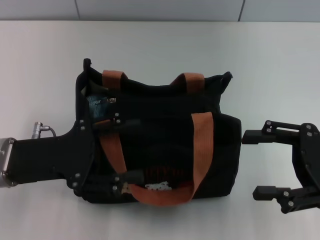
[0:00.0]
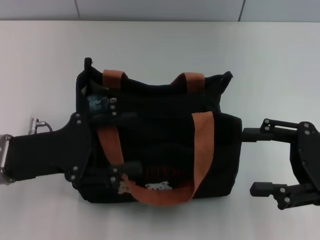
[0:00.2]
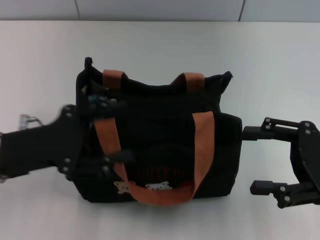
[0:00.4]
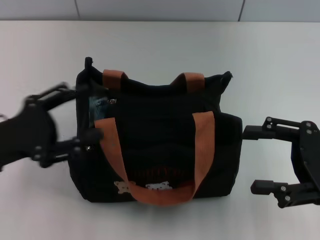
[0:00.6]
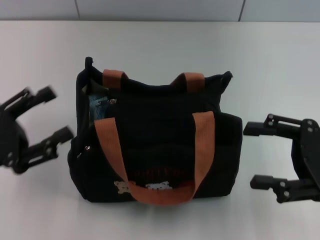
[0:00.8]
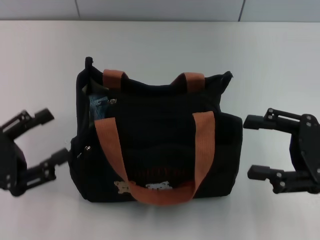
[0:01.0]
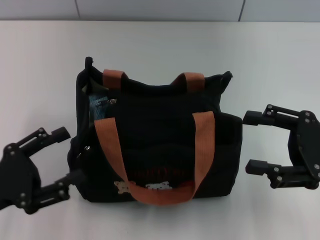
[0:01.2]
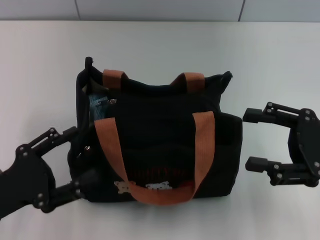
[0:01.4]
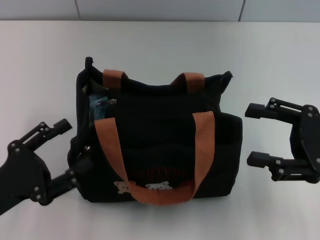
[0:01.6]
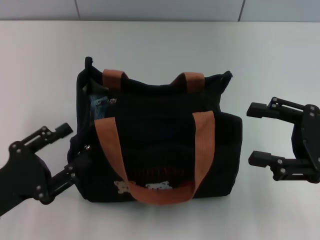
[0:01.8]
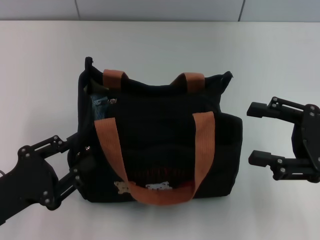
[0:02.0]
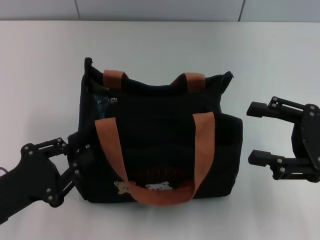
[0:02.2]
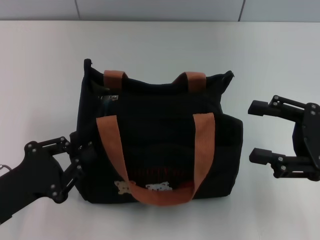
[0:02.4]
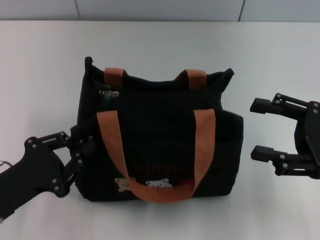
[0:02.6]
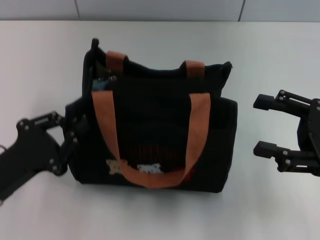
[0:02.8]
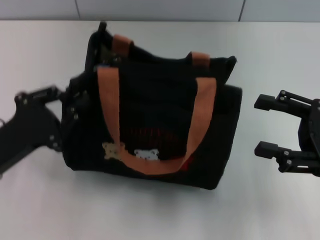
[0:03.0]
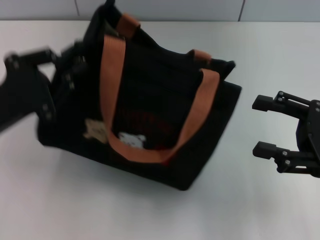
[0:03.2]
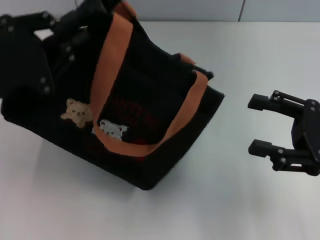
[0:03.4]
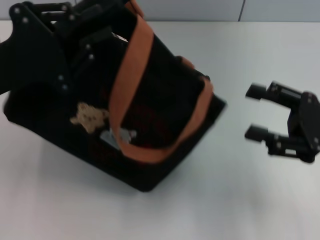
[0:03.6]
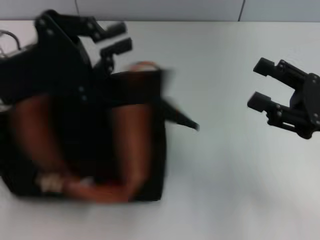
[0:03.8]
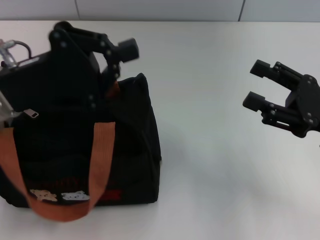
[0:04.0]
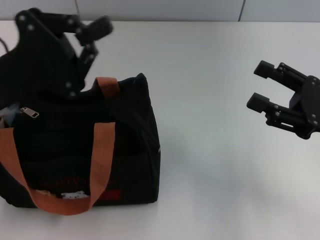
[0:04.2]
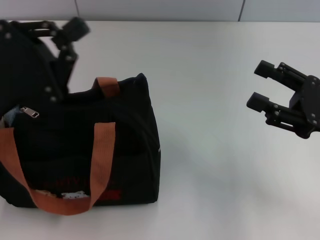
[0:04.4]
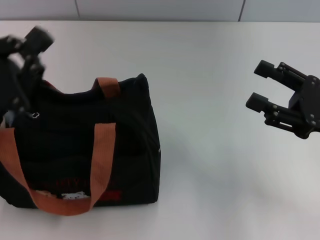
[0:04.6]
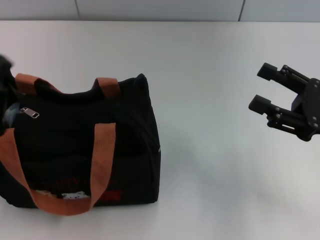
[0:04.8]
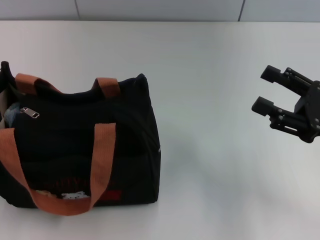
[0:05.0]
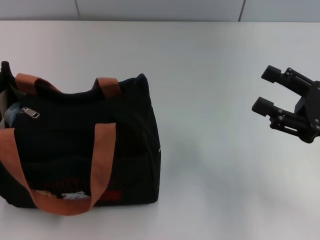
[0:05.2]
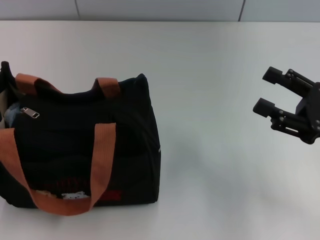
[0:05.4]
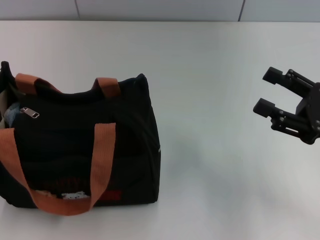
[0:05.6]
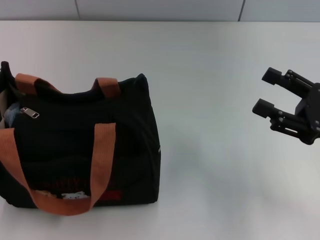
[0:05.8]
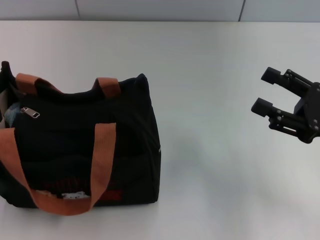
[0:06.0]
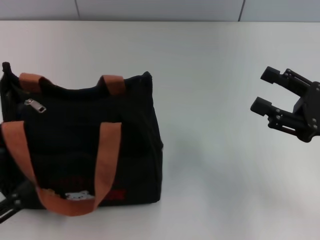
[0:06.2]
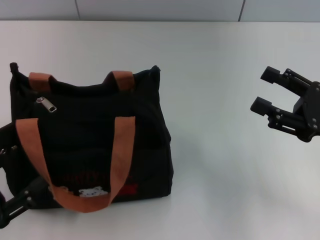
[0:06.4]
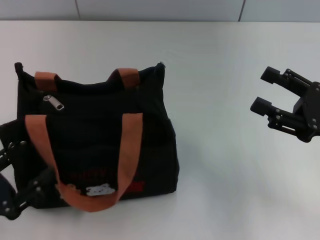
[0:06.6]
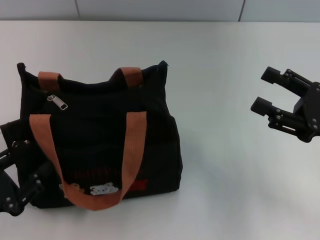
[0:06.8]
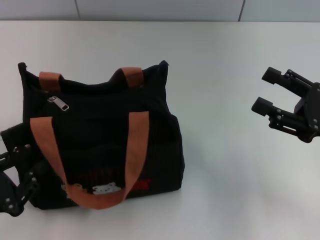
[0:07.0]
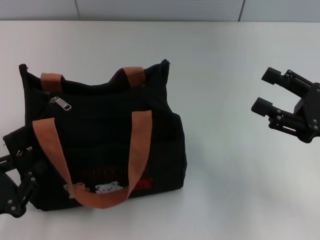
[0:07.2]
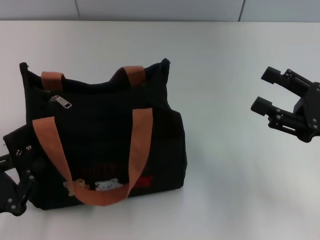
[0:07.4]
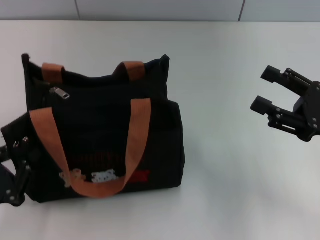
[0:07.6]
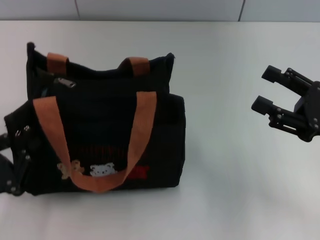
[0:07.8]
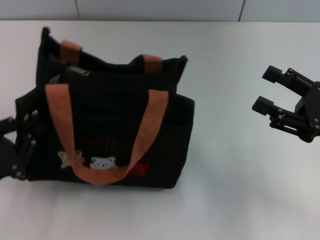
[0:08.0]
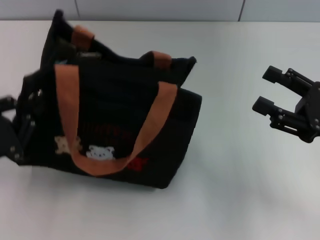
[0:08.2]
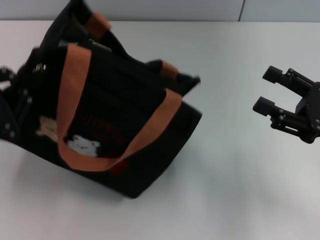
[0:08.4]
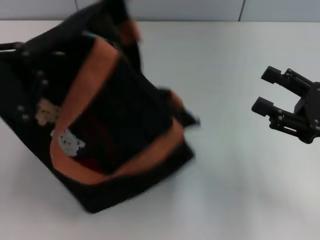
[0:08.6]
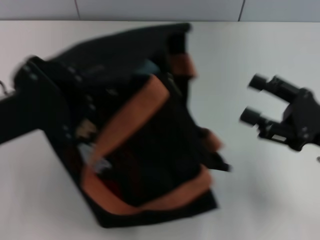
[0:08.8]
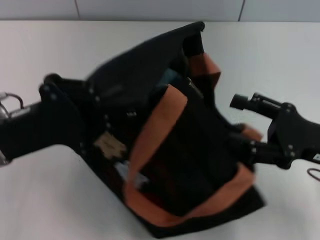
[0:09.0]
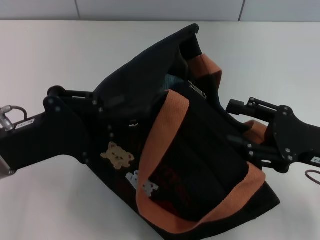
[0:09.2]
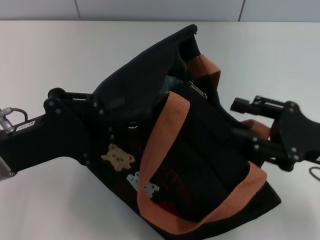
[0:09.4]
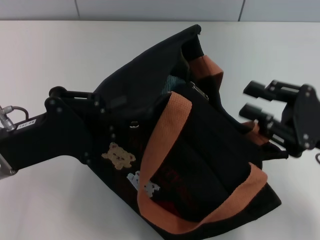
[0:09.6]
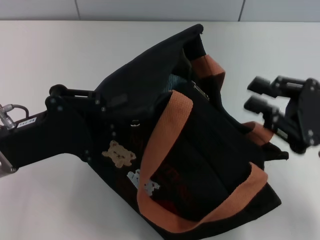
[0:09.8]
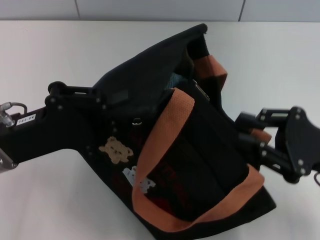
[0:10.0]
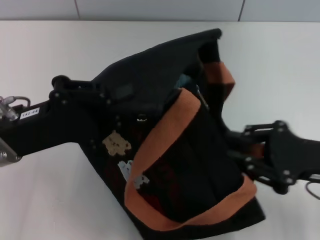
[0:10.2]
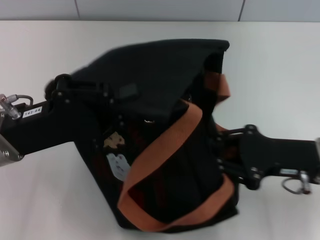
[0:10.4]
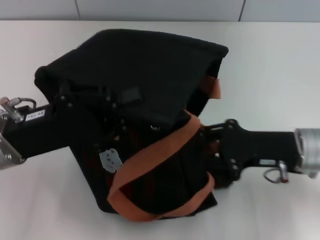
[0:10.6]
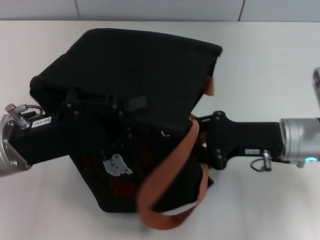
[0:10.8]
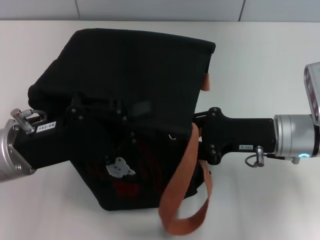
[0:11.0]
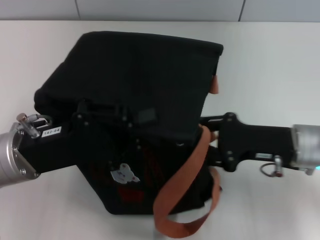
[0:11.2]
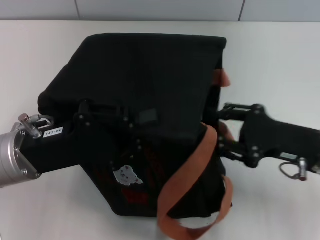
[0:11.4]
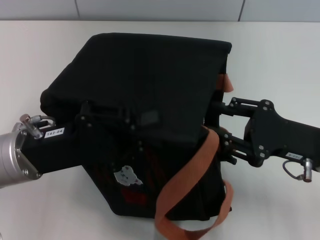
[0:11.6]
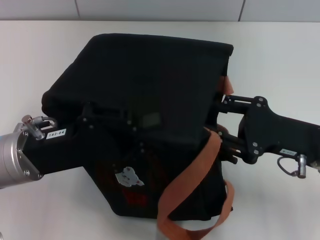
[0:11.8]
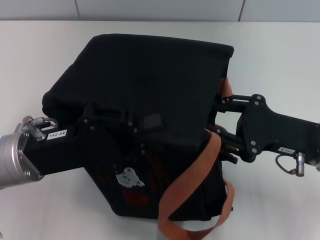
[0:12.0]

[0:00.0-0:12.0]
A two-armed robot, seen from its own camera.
0:00.0 to 0:01.6: The left gripper travels backward by approximately 10 cm.
0:01.6 to 0:03.0: The left gripper closes up.
0:03.0 to 0:04.4: The left gripper moves upward and forward, approximately 10 cm.
0:04.4 to 0:06.0: The left gripper heads backward, to the left and downward, covering approximately 25 cm, and opens up.
0:06.0 to 0:07.6: The left gripper shifts about 5 cm to the right, and closes up.
0:07.6 to 0:09.0: The left gripper is displaced forward, upward and to the right by approximately 15 cm.
0:09.0 to 0:10.4: The right gripper closes.

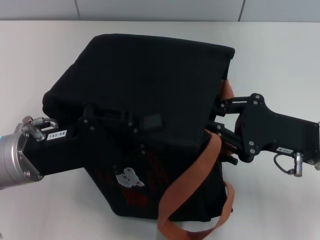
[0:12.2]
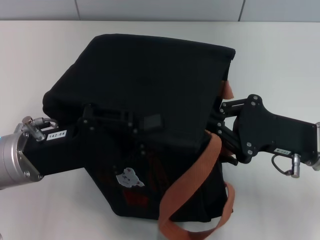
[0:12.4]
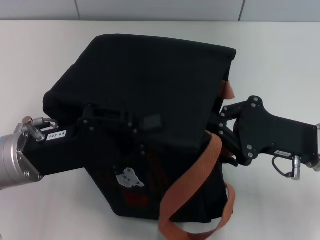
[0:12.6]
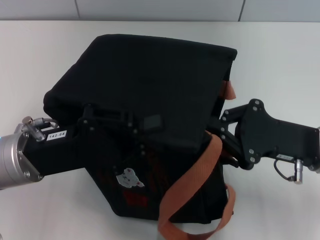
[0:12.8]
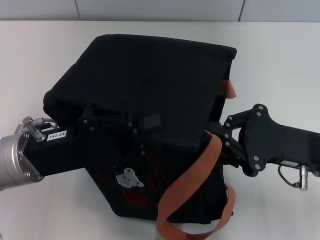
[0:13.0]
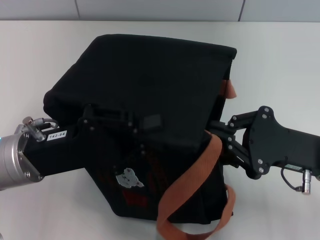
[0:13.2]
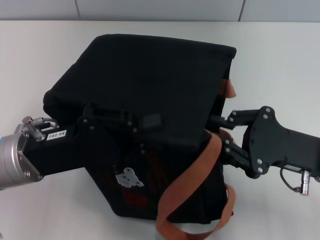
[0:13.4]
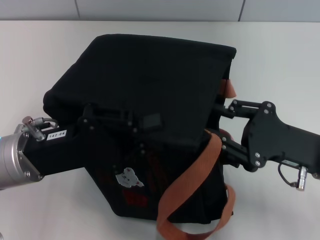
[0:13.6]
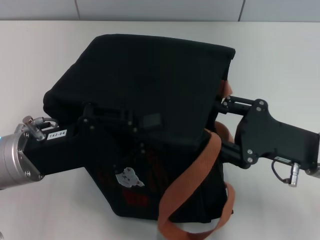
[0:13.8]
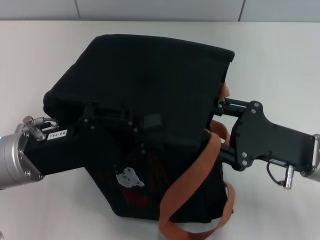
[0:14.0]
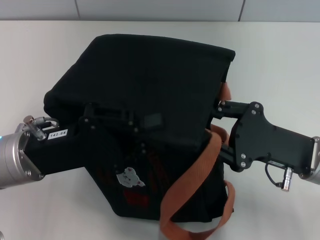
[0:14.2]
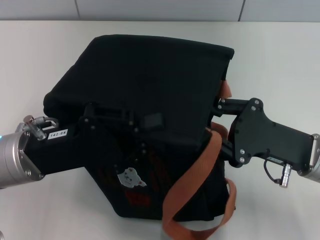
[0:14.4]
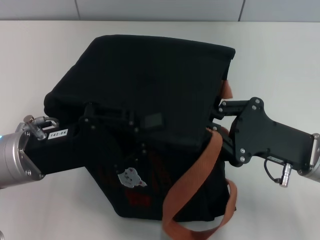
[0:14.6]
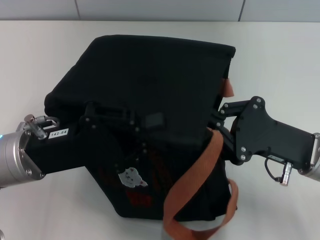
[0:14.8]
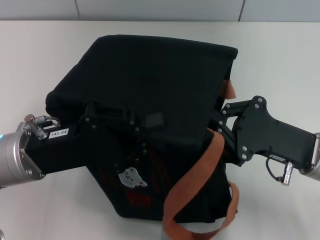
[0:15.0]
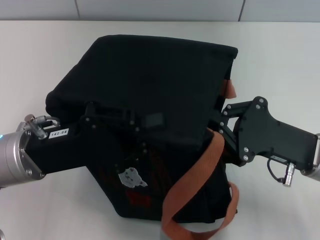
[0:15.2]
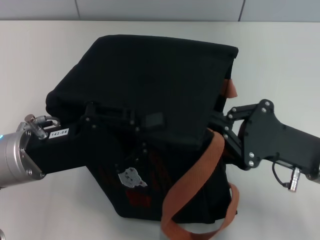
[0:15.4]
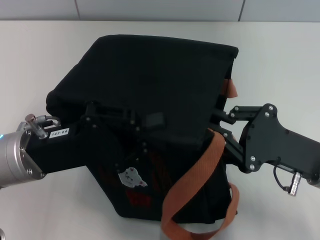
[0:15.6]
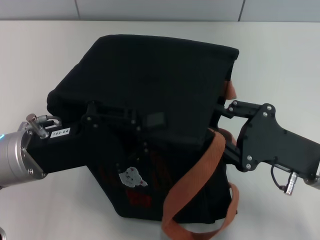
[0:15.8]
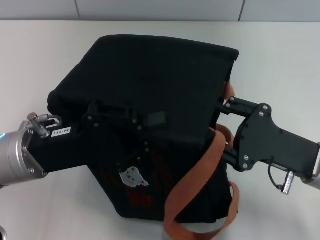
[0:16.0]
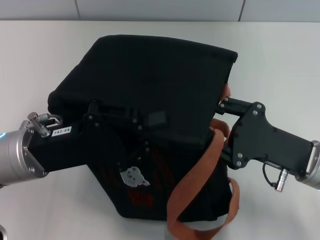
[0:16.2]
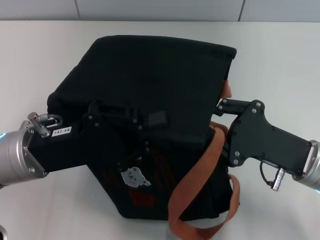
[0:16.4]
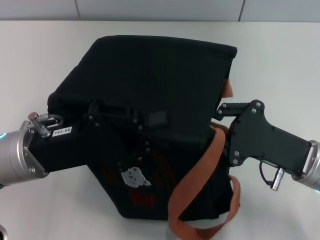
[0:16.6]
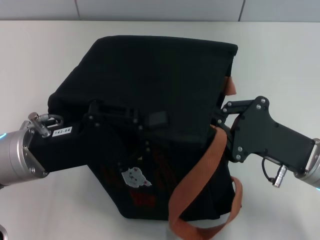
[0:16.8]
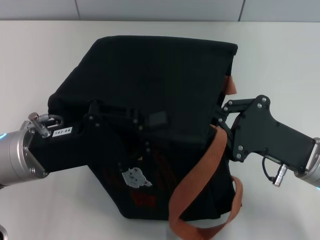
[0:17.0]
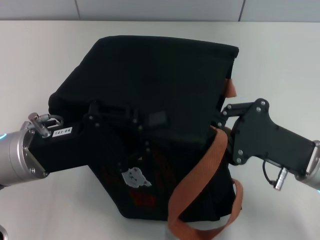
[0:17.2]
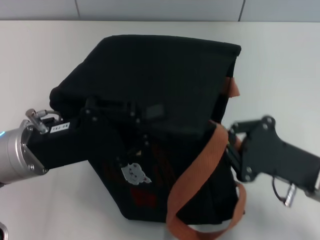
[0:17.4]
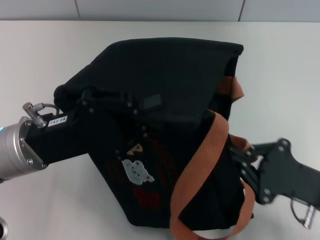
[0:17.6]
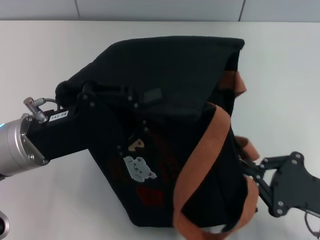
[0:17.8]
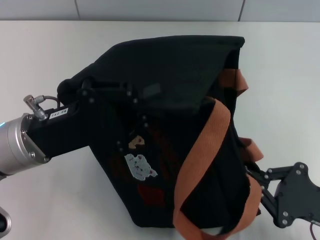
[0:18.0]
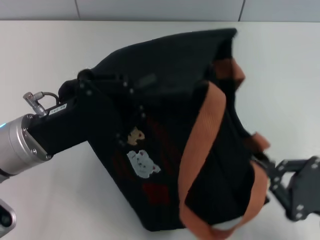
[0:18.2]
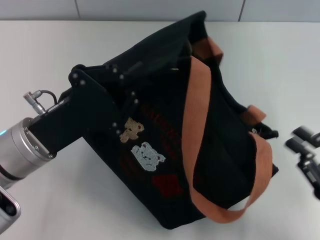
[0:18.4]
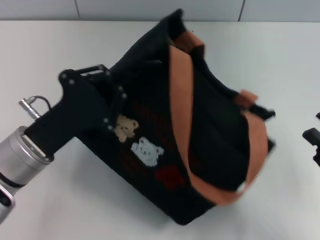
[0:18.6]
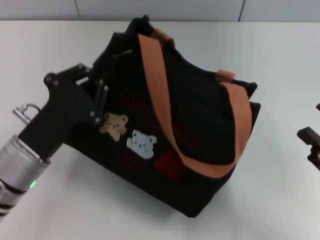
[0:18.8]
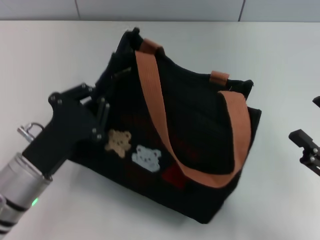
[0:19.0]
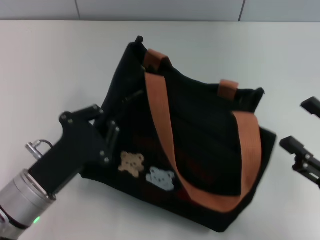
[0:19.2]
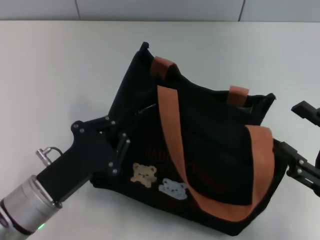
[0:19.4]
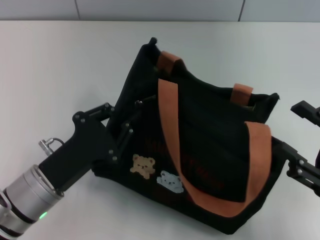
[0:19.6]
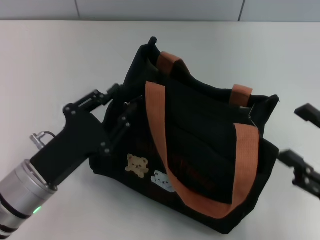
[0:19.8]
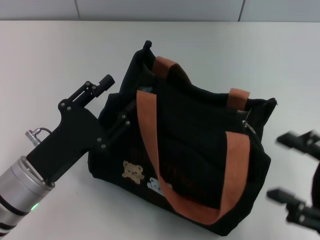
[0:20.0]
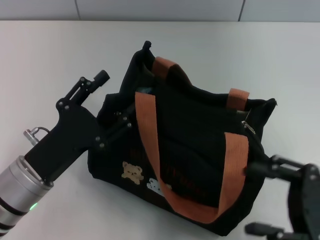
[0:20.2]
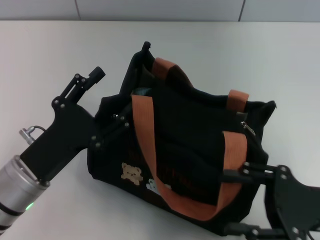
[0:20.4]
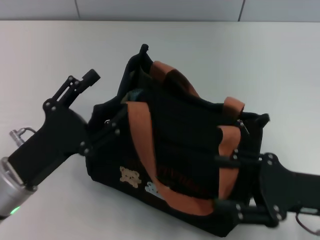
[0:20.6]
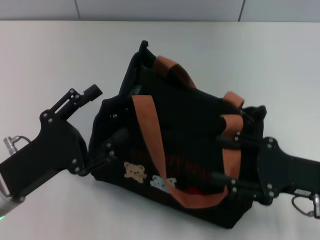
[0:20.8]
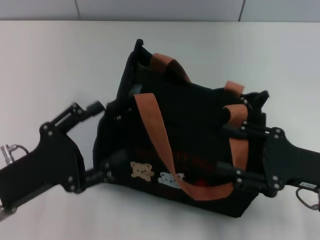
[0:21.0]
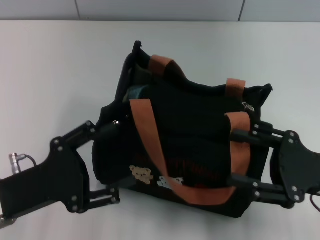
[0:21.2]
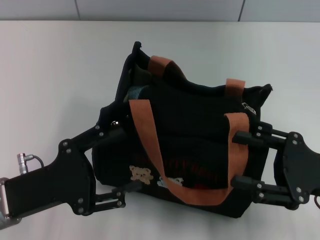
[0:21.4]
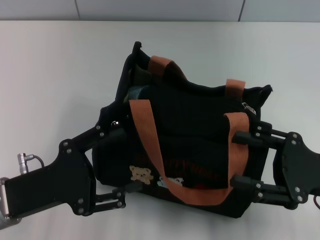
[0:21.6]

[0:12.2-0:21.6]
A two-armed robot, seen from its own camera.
Step, 0:12.2 to 0:18.2: Pull open the zipper with your right hand.
Step, 0:18.4 to 0:19.8: Grab the bag with your left hand.
0:12.2 to 0:13.8: The right gripper closes and opens again.
0:13.8 to 0:15.4: The right gripper closes its fingers.
0:15.4 to 0:17.0: The right gripper opens, then closes again.
0:17.0 to 0:18.4: The right gripper goes approximately 10 cm to the right and backward.
0:18.4 to 0:20.0: The left gripper ends up approximately 5 cm from where it was, and opens. Meanwhile the right gripper opens up.
0:20.0 to 0:21.6: The right gripper moves forward, roughly 5 cm. Meanwhile the left gripper opens its fingers.

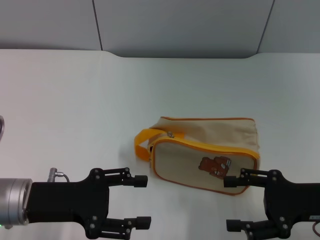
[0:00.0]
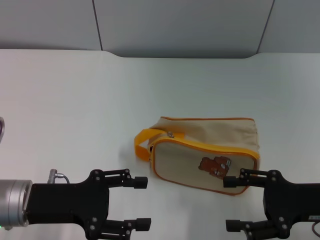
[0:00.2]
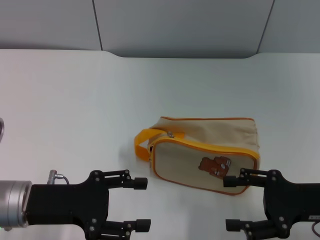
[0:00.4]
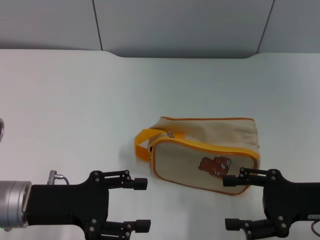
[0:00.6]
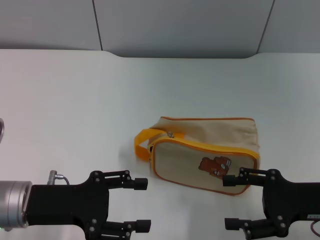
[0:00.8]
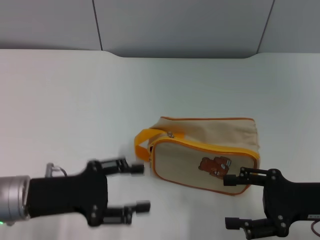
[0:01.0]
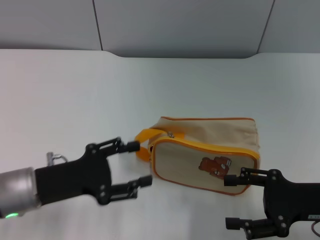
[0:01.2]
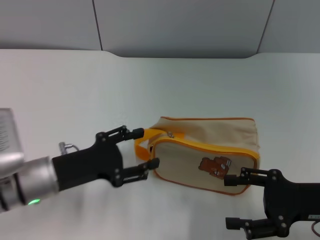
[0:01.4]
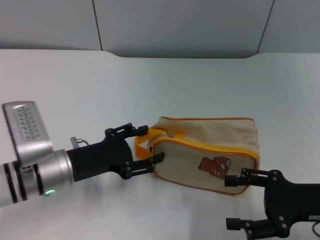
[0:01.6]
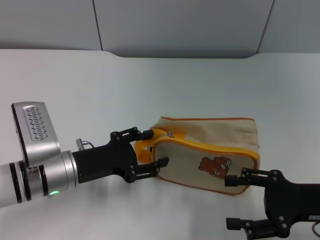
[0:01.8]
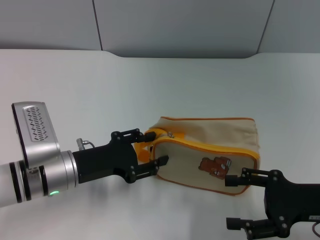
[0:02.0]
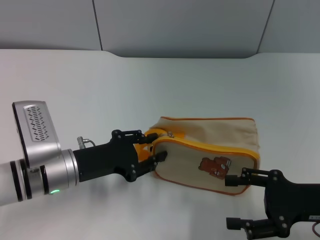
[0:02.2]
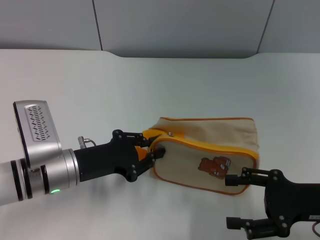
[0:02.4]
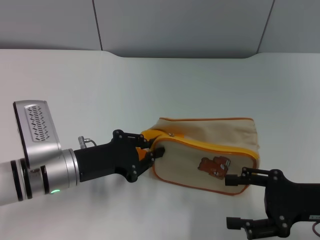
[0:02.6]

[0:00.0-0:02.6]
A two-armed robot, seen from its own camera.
0:00.0 to 0:01.2: The grippers make only small movements.
0:01.2 to 0:02.6: The left gripper ends up about 5 cm from where it was, and closes its fingers.
